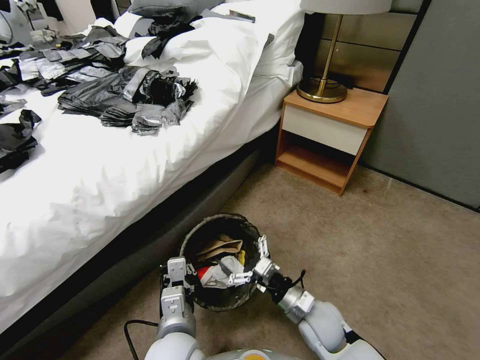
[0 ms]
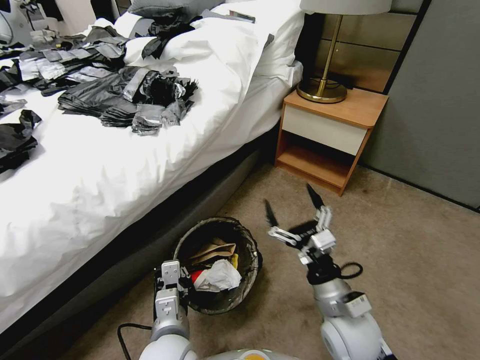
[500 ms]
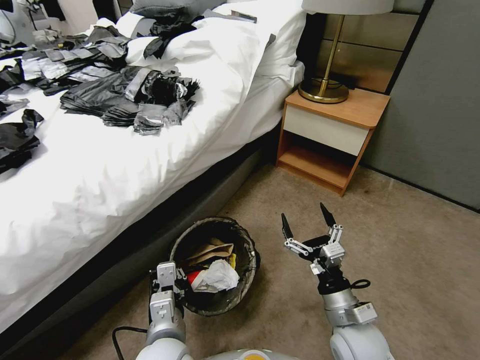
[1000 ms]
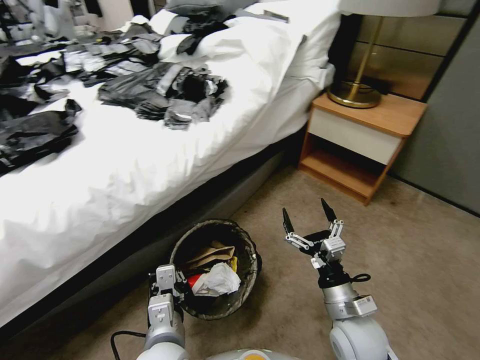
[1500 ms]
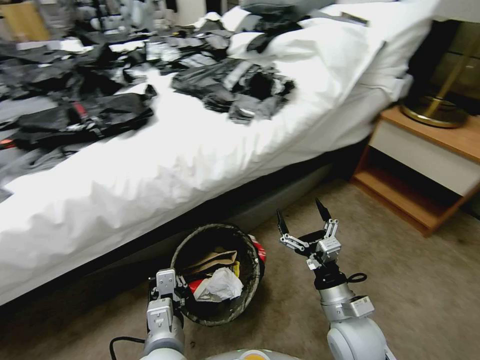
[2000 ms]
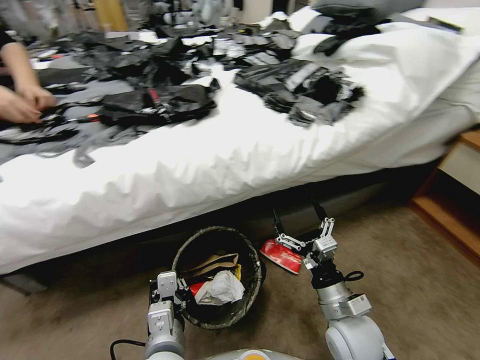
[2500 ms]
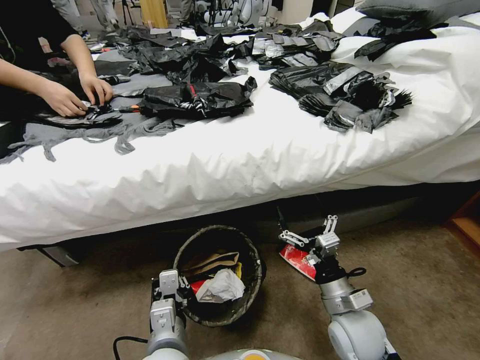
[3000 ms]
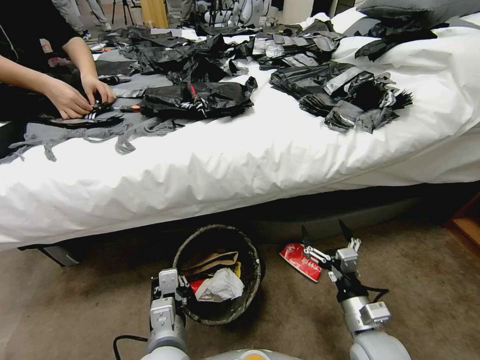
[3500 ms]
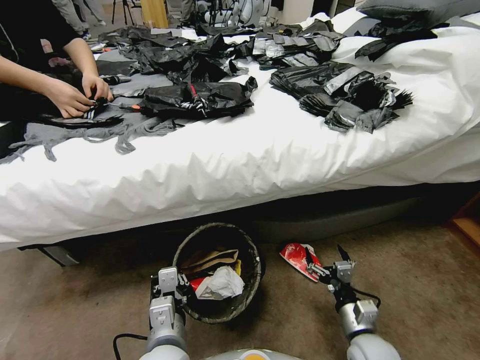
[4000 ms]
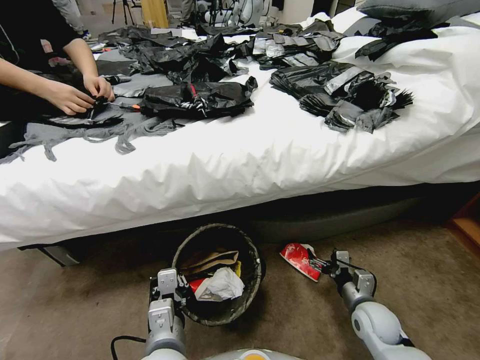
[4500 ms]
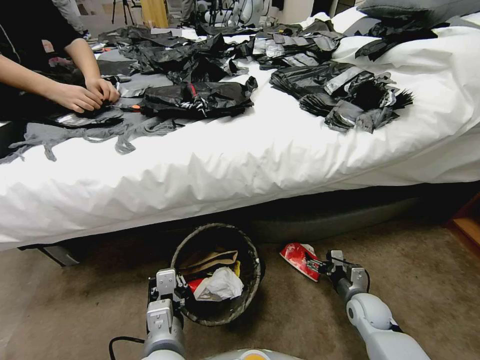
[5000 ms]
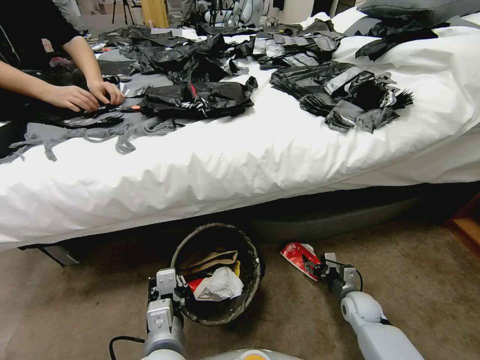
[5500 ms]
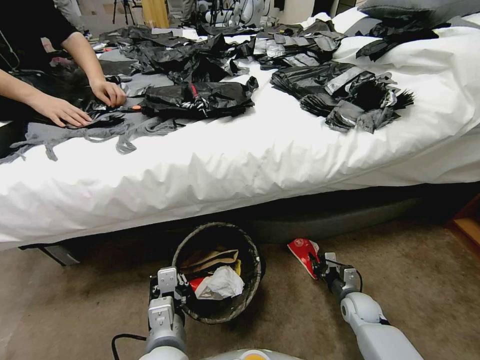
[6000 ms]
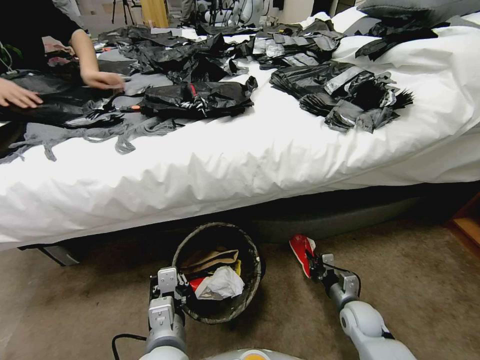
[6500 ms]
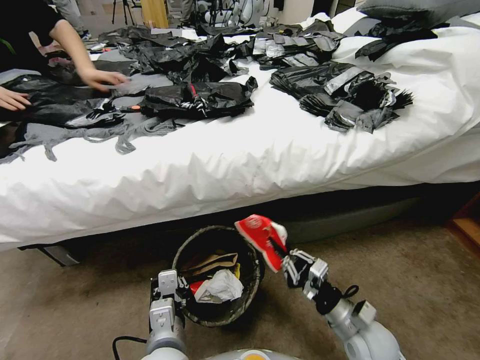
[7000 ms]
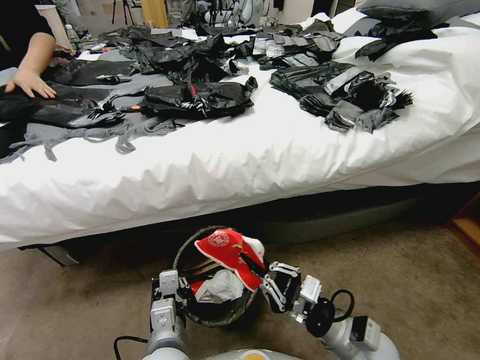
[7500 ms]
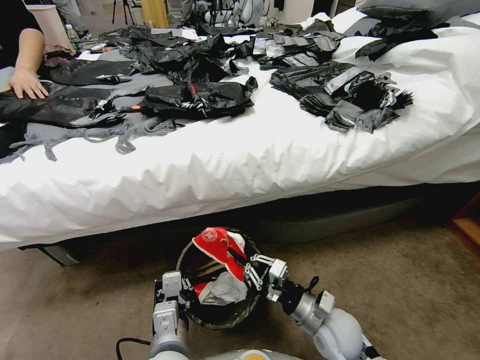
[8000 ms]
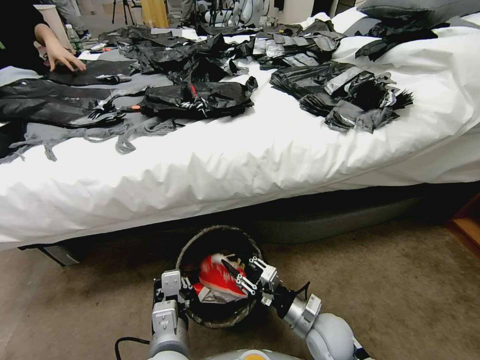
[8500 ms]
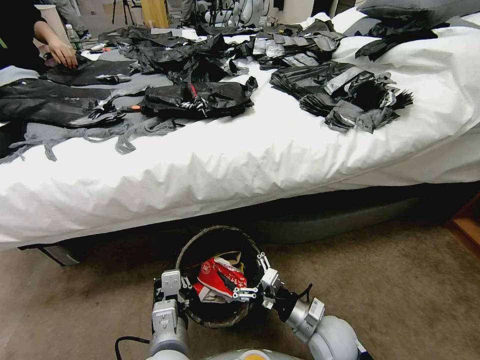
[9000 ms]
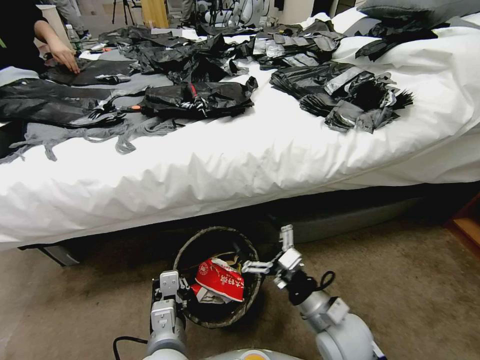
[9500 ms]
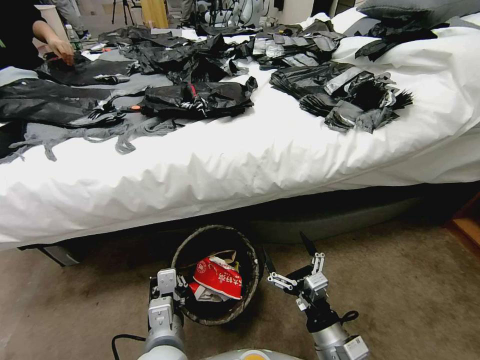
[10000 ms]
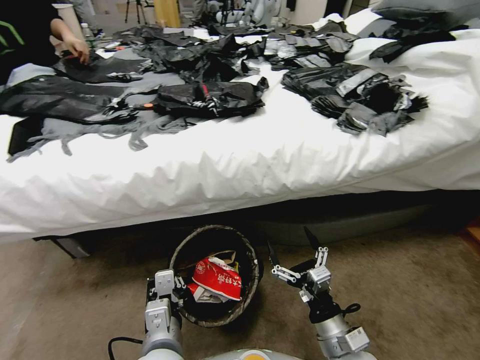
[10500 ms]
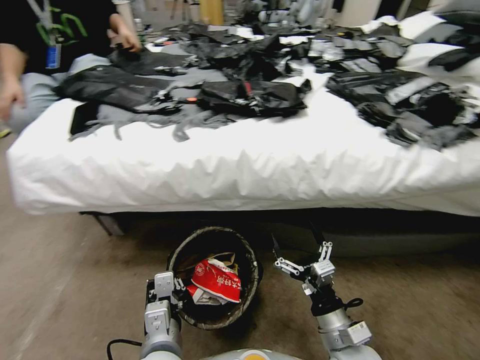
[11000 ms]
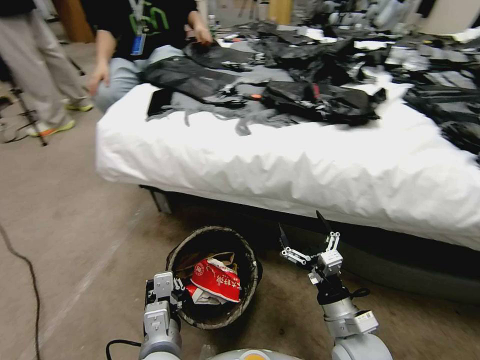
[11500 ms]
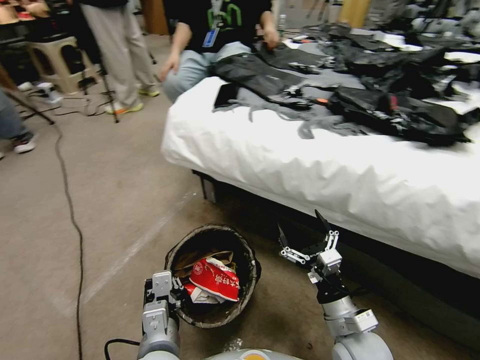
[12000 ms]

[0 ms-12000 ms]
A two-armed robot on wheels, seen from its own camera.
Task of the whole recording: Pick up the trash bin, then pick up the garbage from the floor and place it into the trash bin.
0 ms to 2000 ms: The right gripper goes approximately 10 cm upward.
2000 ms to 4000 ms: The right gripper moves downward and to the right, about 10 cm.
4000 ms to 6000 ms: The right gripper heads forward, downward and to the right, covering about 15 cm, and closes its fingers.
6000 ms to 8000 ms: The right gripper heads upward, to the left and backward, covering about 20 cm.
8000 ms to 10000 ms: The right gripper is displaced backward by roughly 10 cm, and opens.
10000 ms to 12000 ms: The right gripper moves roughly 5 cm.

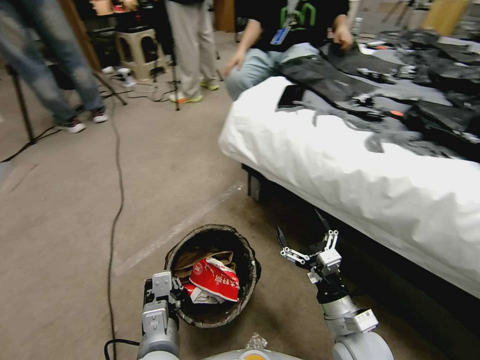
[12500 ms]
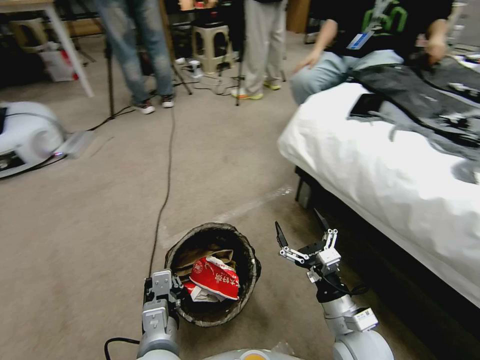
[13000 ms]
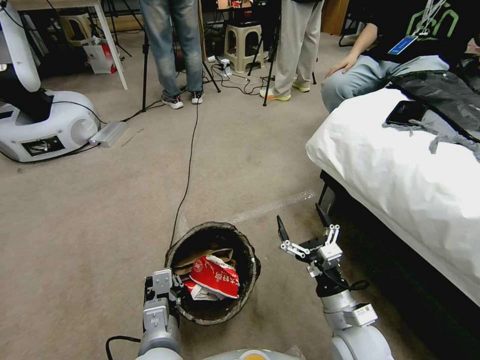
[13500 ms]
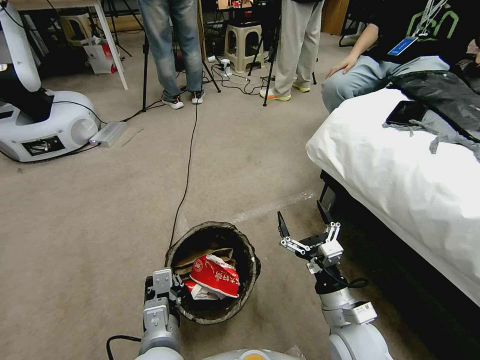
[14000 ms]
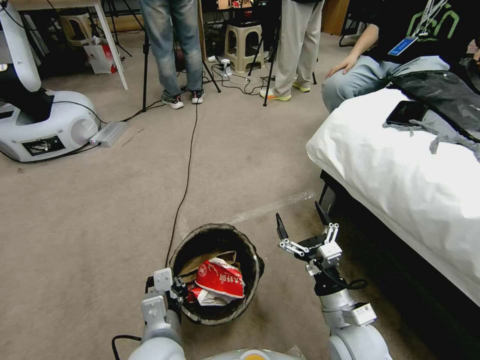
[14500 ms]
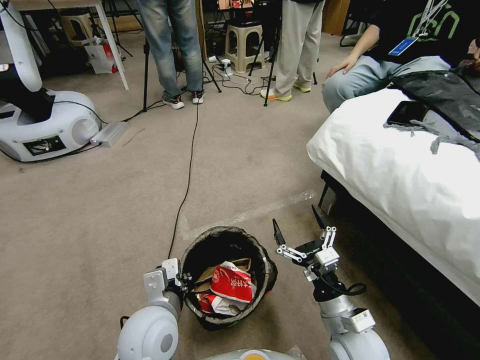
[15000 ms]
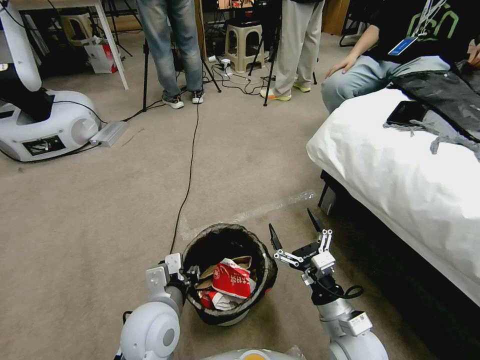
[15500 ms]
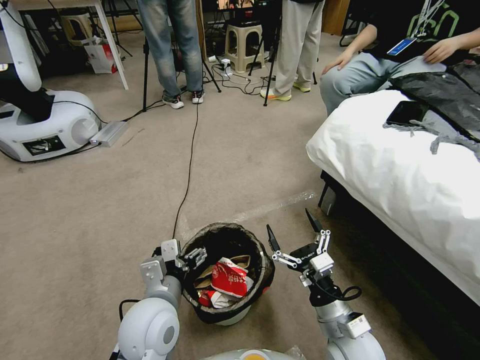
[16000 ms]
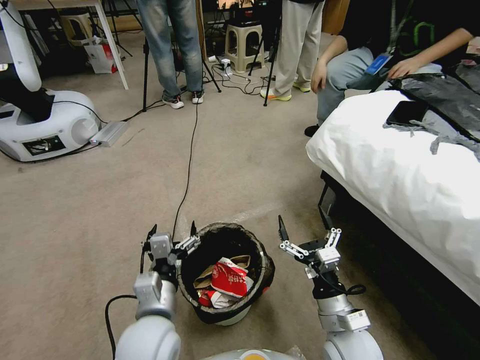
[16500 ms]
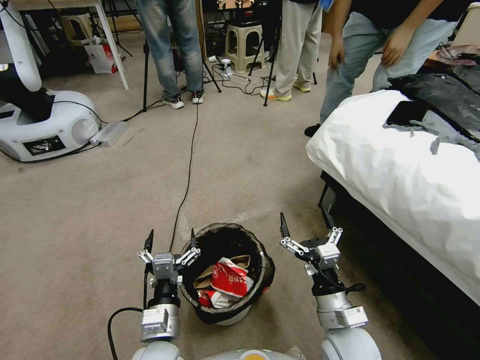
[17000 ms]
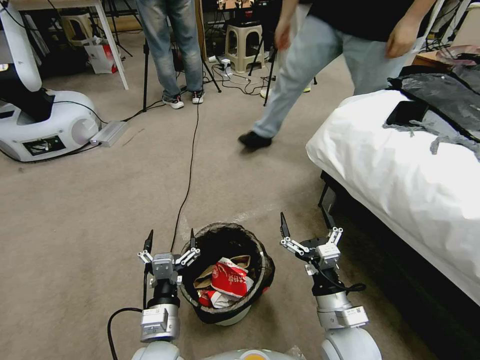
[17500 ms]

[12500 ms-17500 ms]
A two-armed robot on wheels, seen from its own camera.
Task of the whole recording: Pick up the trash bin, then pick up the garbage from the floor and place it into the trash bin.
12500 ms to 15000 ms: The left gripper goes approximately 5 cm forward.
15000 ms to 17500 ms: The left gripper is displaced downward by about 5 cm, and opens its fingers.
